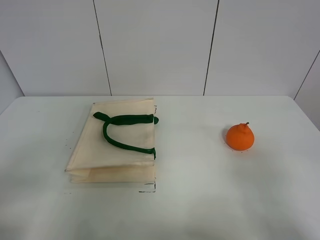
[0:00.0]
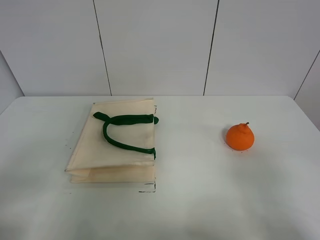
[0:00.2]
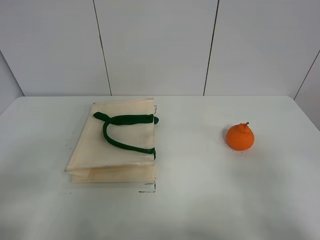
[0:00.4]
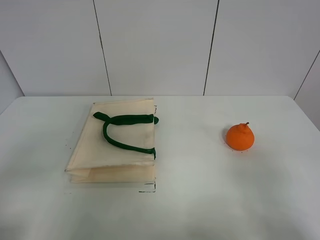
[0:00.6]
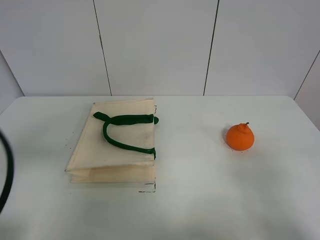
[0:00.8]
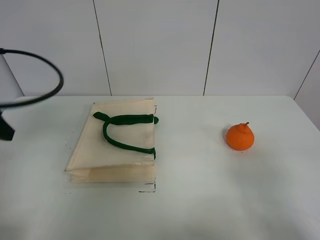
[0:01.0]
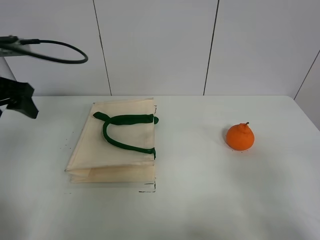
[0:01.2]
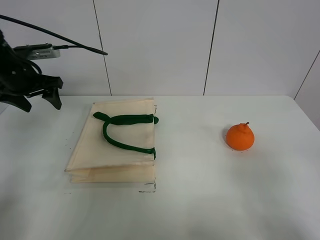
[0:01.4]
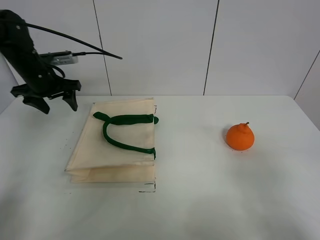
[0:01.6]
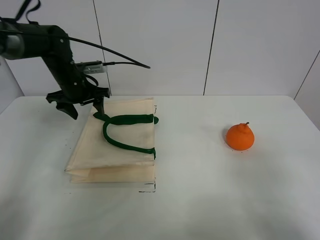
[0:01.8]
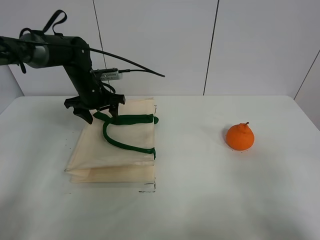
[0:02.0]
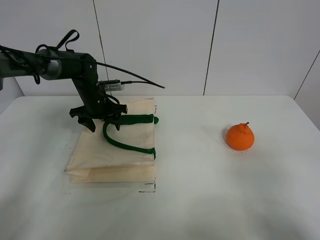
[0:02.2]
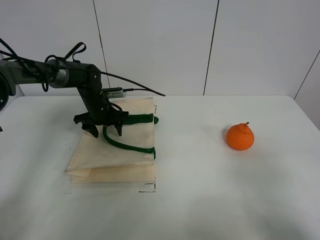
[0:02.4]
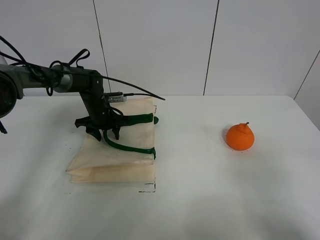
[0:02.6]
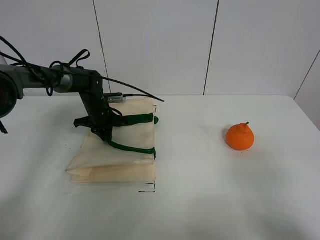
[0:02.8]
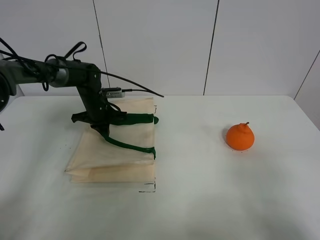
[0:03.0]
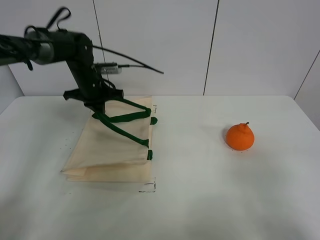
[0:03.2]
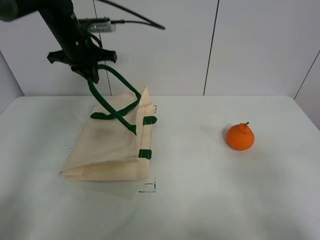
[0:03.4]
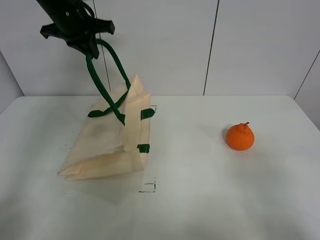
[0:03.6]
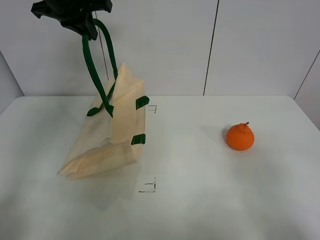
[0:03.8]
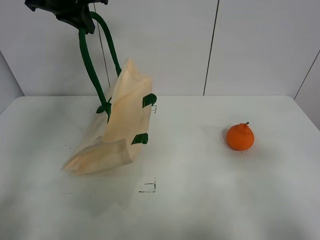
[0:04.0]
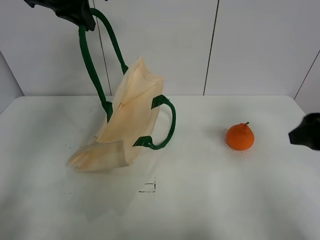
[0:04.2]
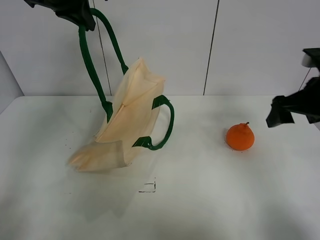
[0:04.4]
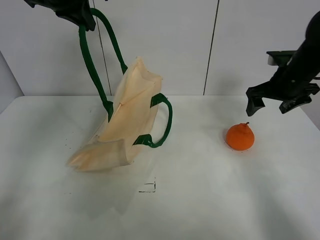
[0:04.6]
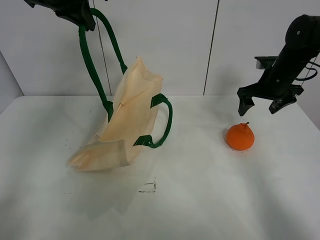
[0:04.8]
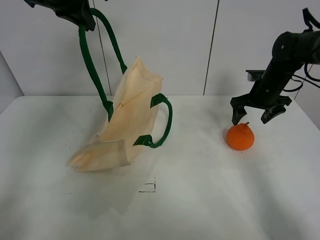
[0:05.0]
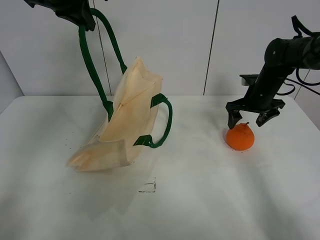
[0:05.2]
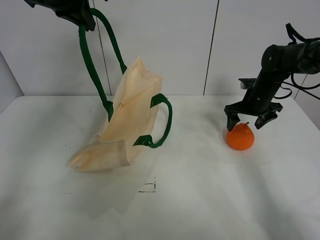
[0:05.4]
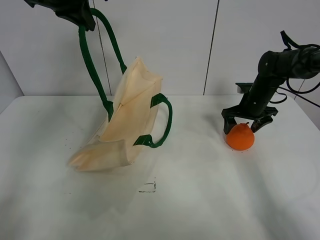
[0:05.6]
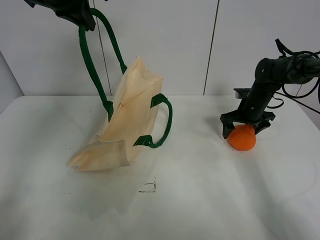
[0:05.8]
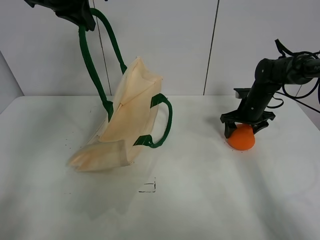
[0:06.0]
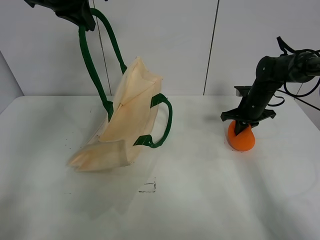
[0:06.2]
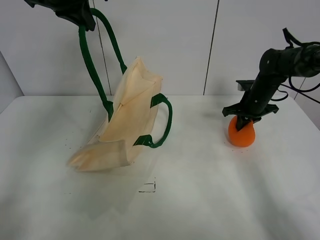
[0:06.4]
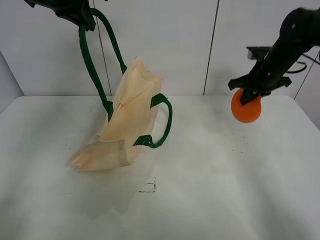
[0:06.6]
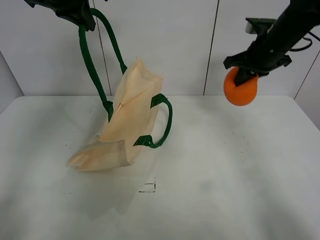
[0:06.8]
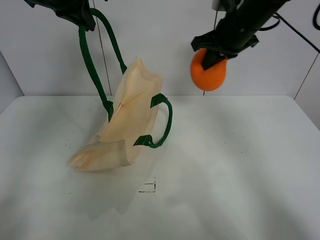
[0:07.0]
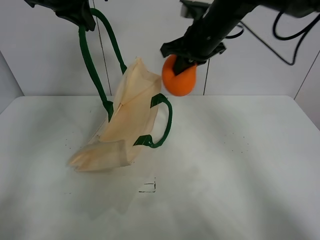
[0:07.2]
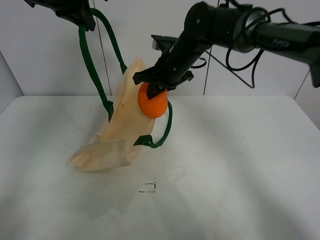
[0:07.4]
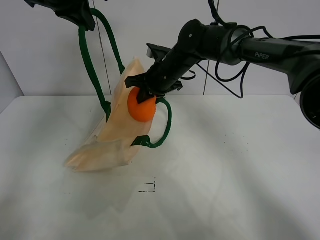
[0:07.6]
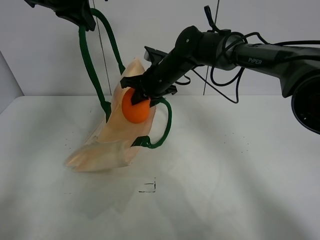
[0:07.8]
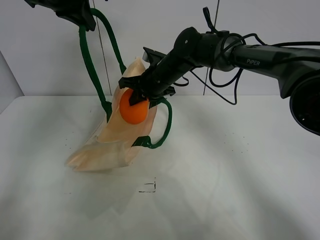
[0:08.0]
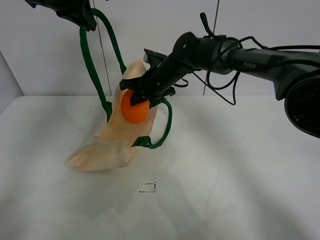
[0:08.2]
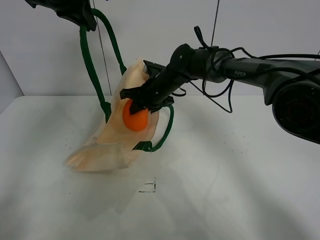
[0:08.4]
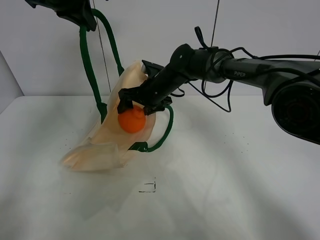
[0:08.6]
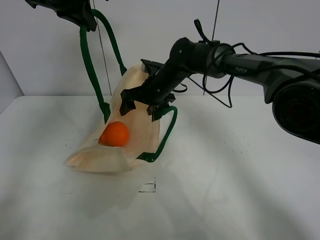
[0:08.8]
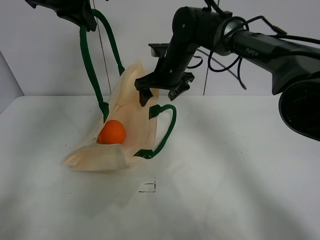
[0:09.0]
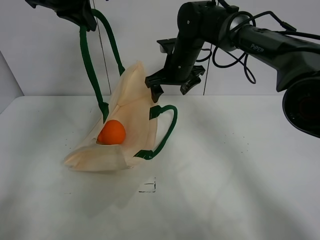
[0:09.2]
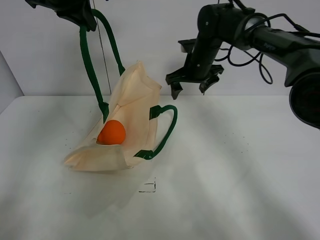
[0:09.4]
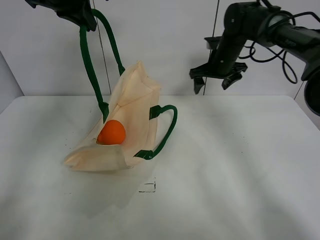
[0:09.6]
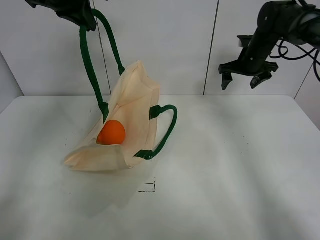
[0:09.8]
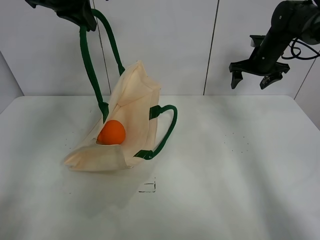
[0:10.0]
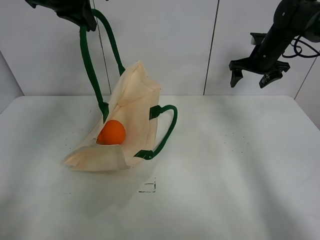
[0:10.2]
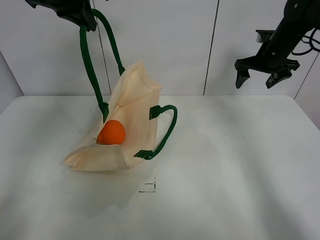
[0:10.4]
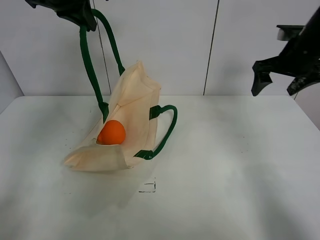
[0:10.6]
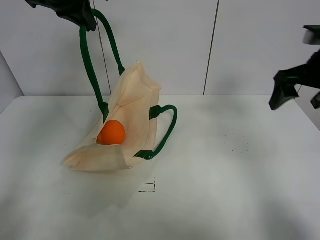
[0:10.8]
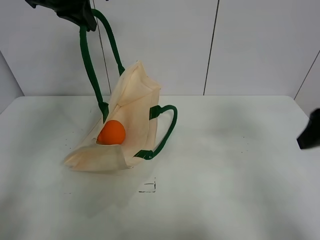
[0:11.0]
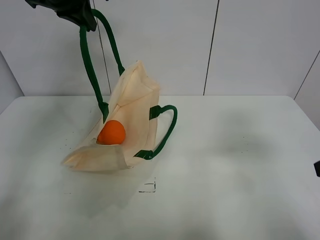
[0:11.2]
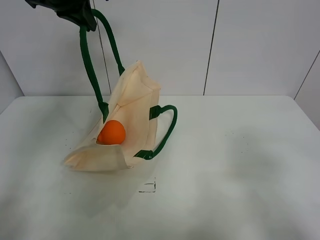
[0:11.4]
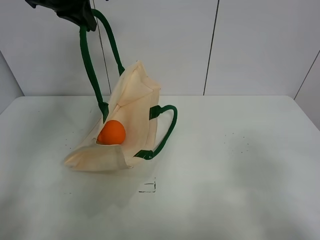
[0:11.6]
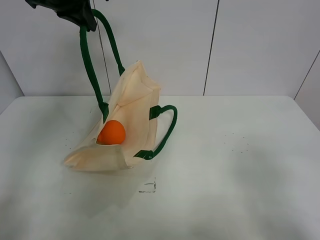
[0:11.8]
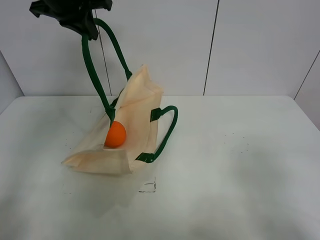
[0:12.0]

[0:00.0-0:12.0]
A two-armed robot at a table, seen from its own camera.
Task of the whole recording: open the white linen bag and put the orange in the bag.
Step, 0:00.0 to 0:03.8: Lift the handbag with left gripper.
Step, 0:04.0 to 0:06.2: Grasp the orange with right gripper.
Step, 0:06.4 to 0:08.8: Place the orange in the handbag with right gripper.
0:00.0 to 0:01.6: The left gripper is displaced forward by about 40 cm.
0:01.6 to 0:03.0: The left gripper goes some 15 cm downward and to the right, and closes its fingers.
0:03.0 to 0:04.4: The left gripper is displaced upward by some 30 cm, while the right gripper goes approximately 30 cm forward.
0:04.4 to 0:06.0: The right gripper shifts about 20 cm forward and downward.
0:06.0 to 0:07.6: The right gripper moves to the left and upward, some 25 cm, and closes up.
0:07.6 to 0:09.0: The right gripper opens.
0:09.0 to 0:10.4: The right gripper travels to the right by roughly 25 cm.
0:10.4 to 0:12.0: The right gripper goes roughly 50 cm backward.

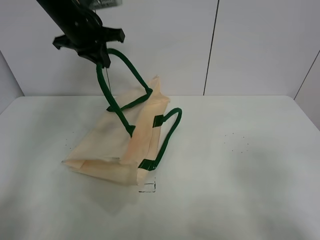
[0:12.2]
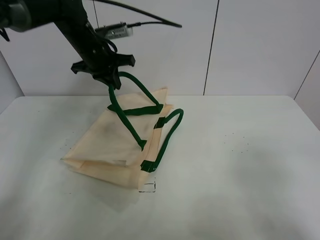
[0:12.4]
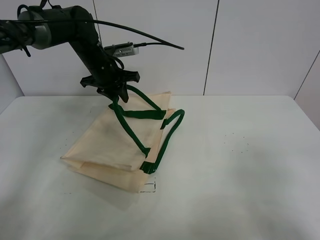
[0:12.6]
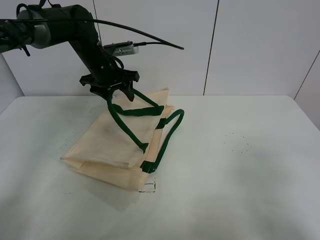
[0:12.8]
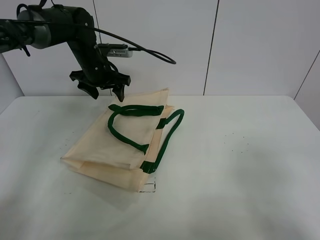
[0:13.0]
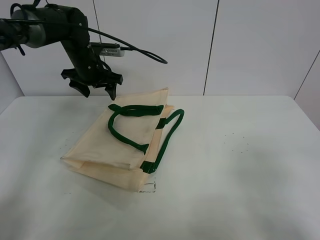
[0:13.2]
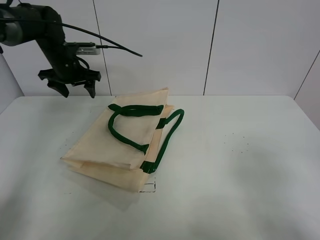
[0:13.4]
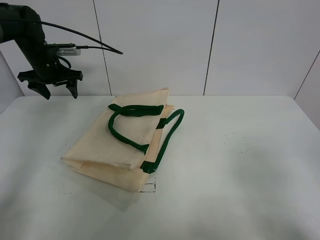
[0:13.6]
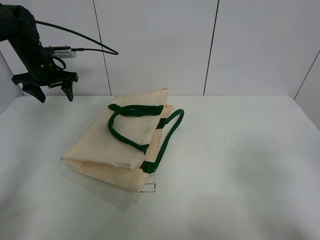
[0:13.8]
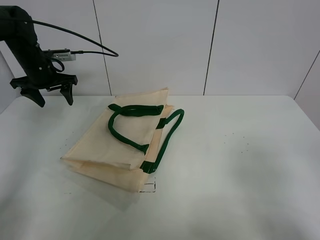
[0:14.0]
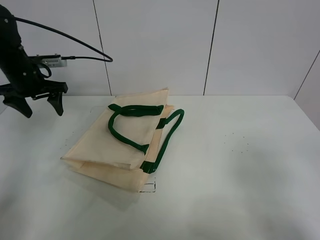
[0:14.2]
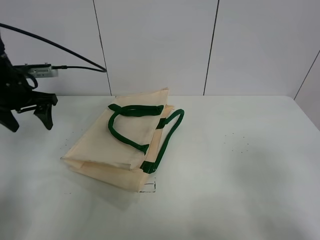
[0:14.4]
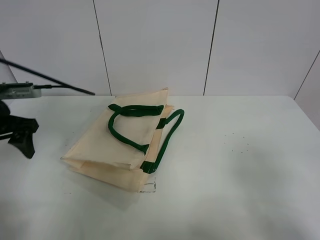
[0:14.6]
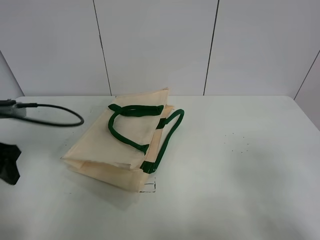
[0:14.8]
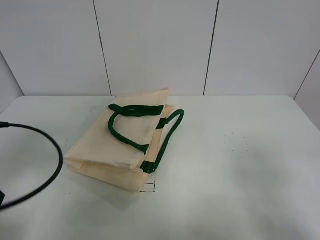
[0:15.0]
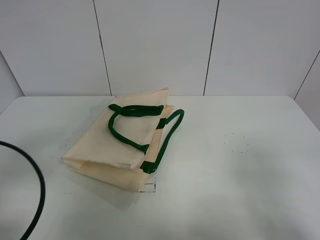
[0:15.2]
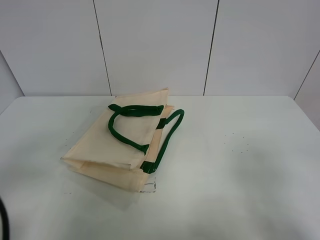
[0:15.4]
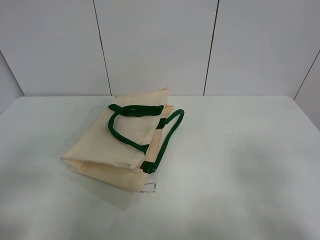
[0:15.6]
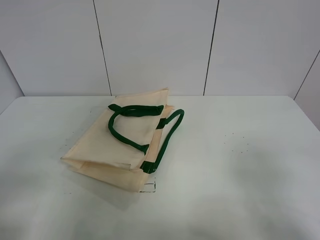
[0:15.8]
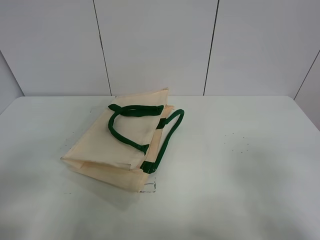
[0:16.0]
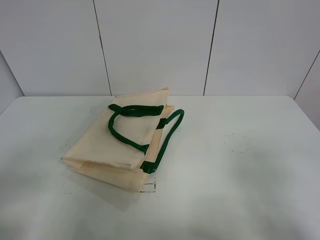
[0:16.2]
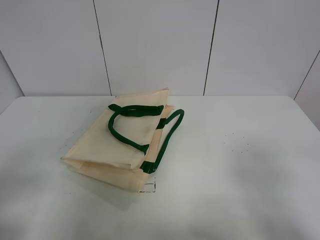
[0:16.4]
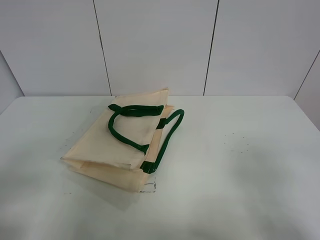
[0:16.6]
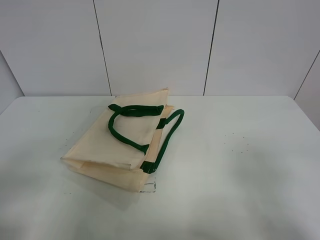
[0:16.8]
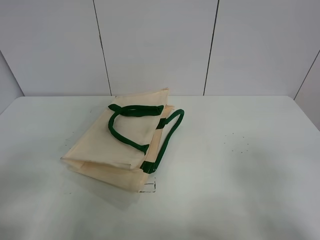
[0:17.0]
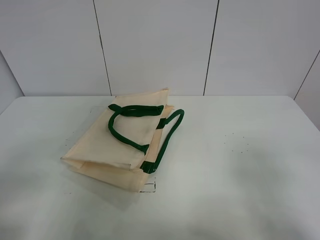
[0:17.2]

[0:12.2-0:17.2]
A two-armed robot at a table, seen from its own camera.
Task of the whole recording: open the white linen bag and put the orange in the bag.
0:12.2 to 0:13.8: The left gripper heads to the left and downward, covering roughly 20 cm, and opens its fingers.
0:13.8 to 0:15.6: The left gripper shifts approximately 50 cm backward.
